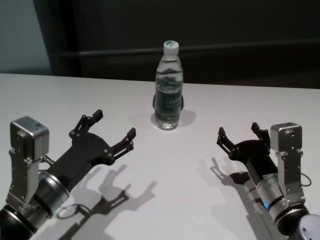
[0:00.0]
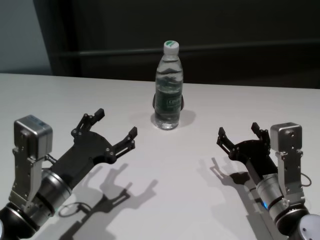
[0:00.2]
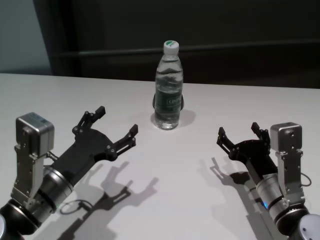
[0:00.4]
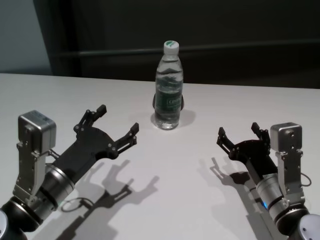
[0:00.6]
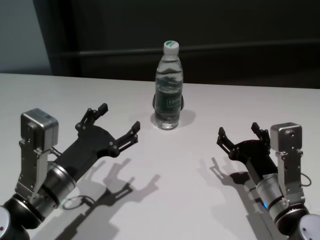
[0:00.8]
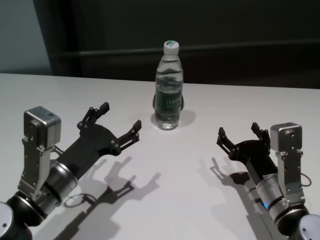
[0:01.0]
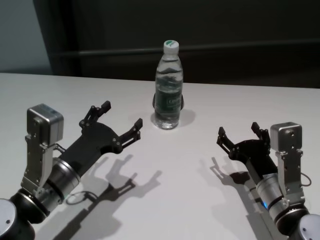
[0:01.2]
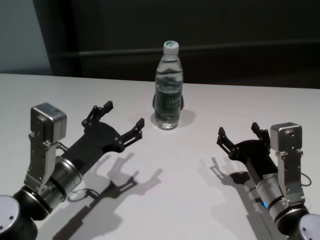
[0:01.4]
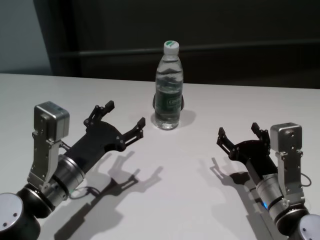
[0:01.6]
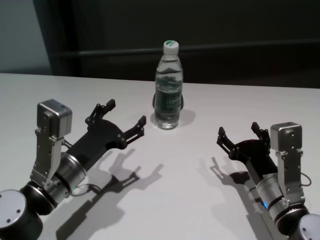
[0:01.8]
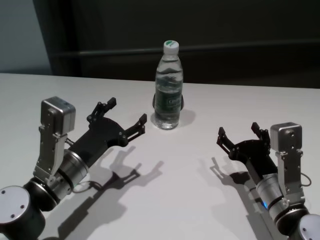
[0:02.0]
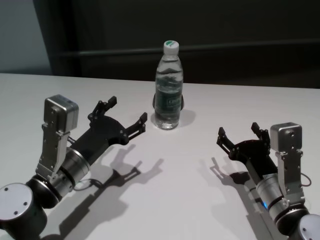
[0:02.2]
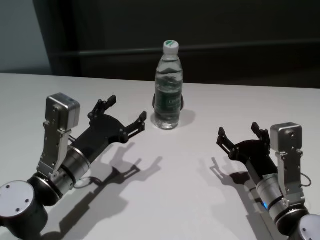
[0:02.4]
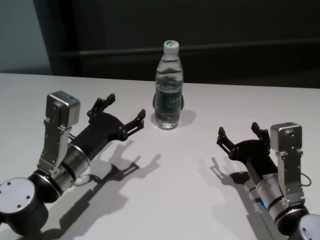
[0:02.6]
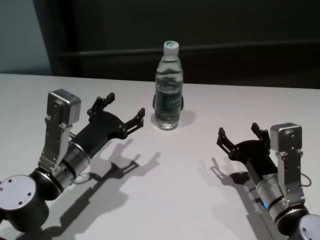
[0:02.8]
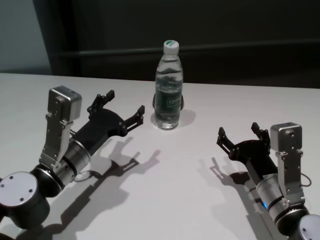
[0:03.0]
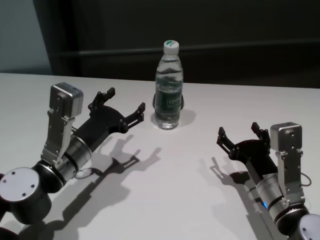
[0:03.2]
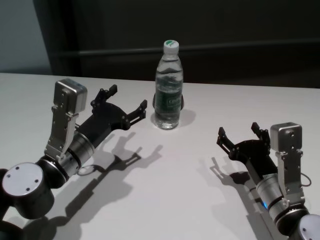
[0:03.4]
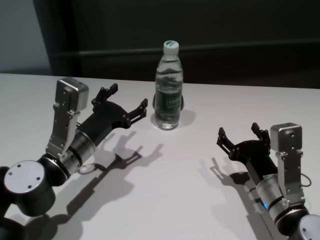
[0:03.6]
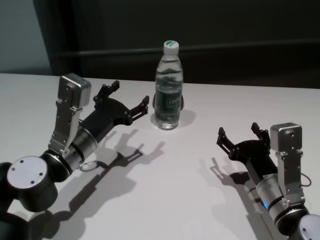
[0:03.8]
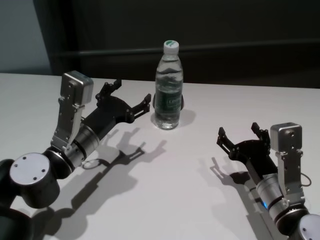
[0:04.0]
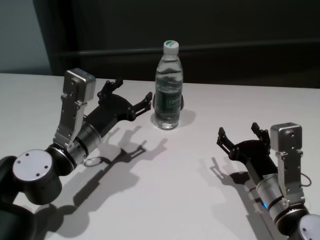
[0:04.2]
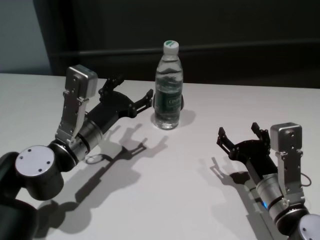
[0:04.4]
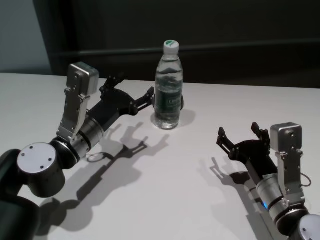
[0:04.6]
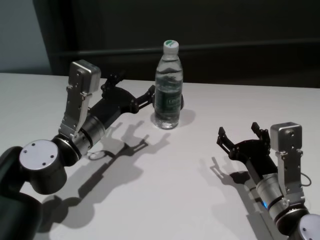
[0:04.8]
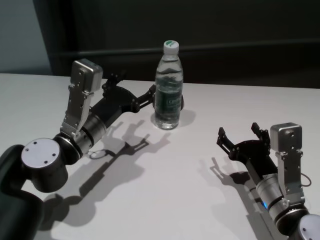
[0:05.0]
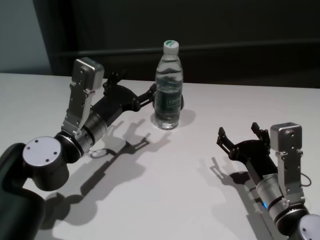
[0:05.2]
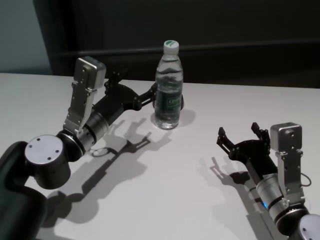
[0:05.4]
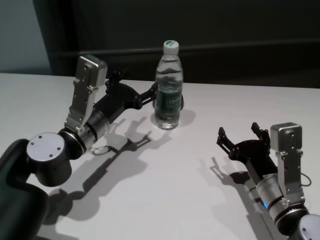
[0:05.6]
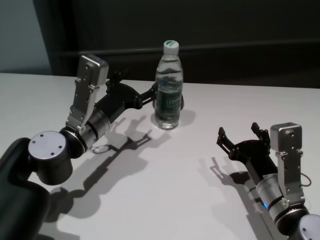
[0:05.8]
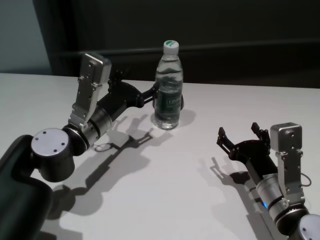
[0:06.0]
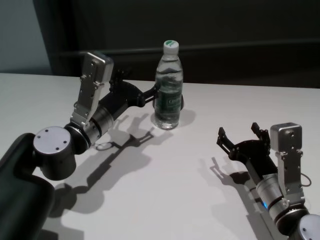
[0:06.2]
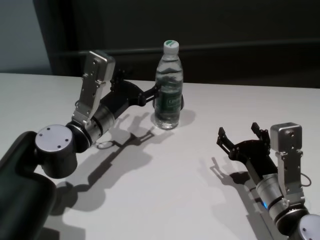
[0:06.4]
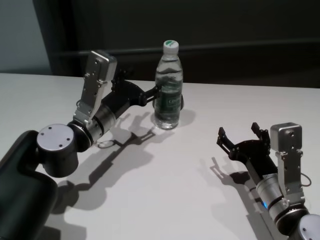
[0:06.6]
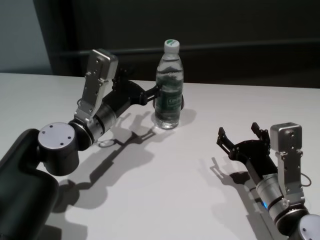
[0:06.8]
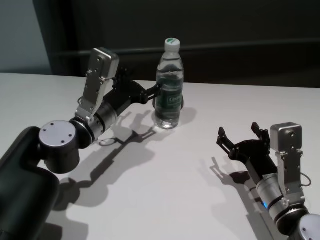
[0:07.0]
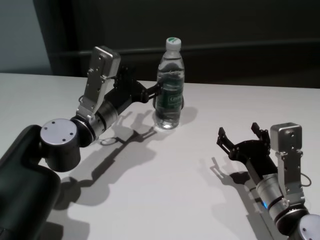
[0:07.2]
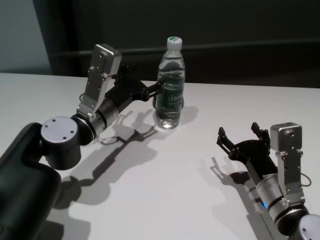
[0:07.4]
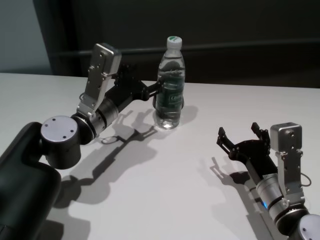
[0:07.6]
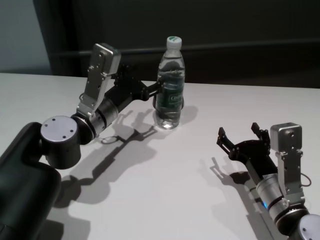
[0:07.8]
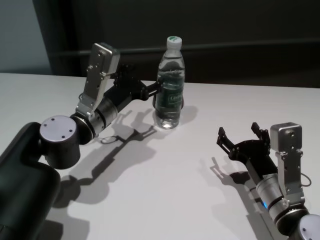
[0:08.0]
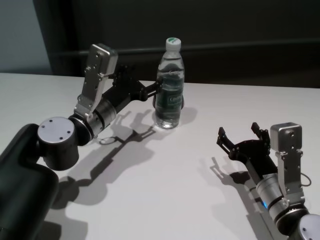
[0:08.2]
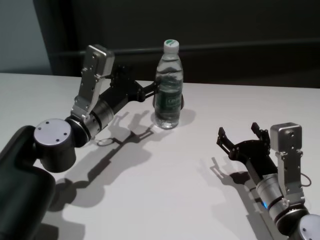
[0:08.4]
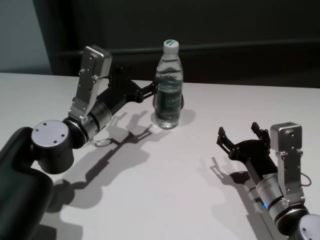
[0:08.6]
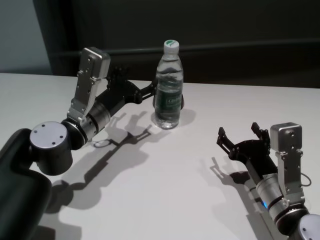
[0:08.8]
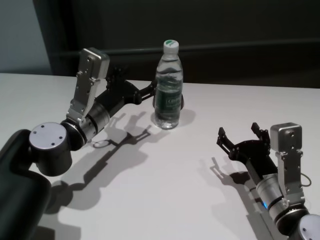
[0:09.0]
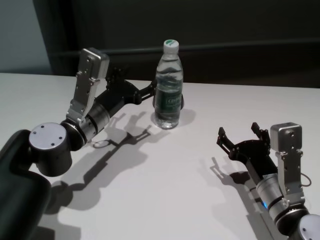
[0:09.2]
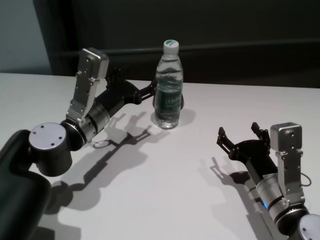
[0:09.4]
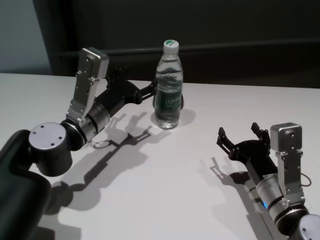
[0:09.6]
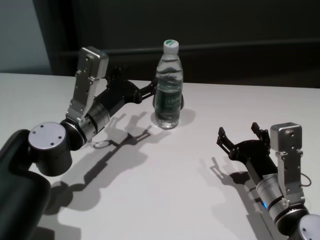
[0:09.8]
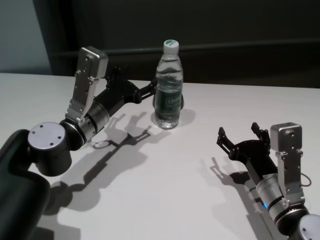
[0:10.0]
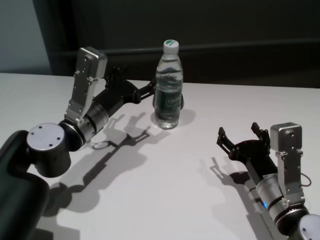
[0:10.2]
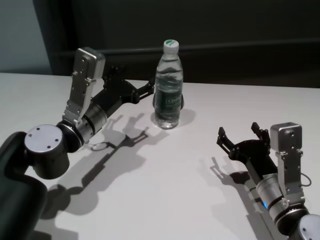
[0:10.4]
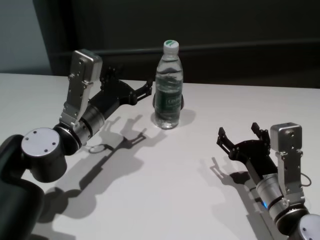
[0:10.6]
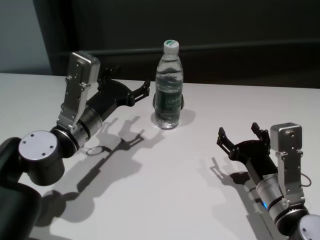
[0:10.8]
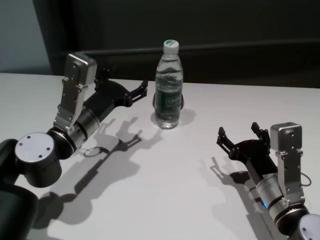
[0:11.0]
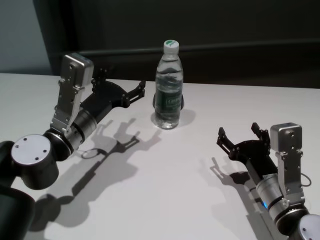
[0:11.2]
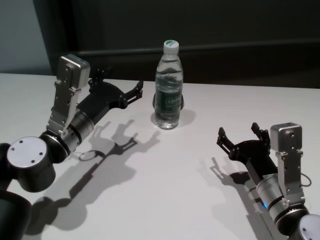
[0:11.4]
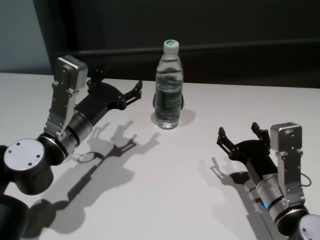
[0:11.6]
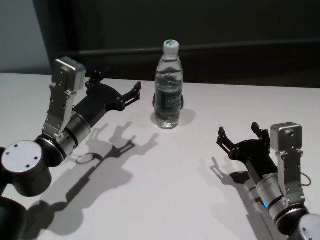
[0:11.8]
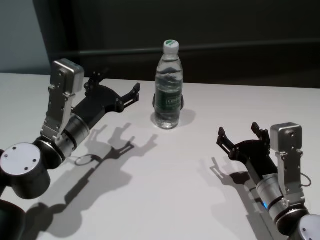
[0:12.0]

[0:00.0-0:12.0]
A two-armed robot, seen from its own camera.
Task of the whole recording: return to a safe position after touching an obstacle with your arm on the white table.
Step, 0:00.0 to 0:11.2: Touch the bottle with left gripper.

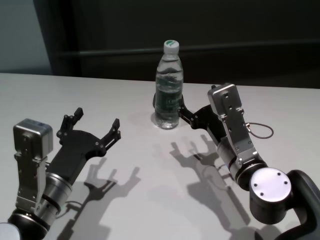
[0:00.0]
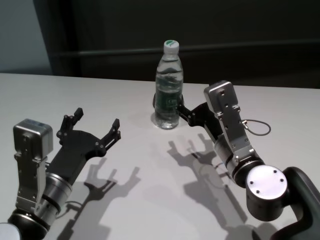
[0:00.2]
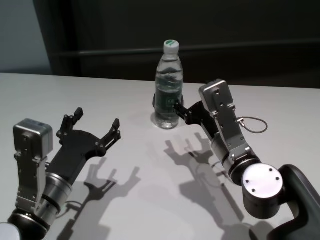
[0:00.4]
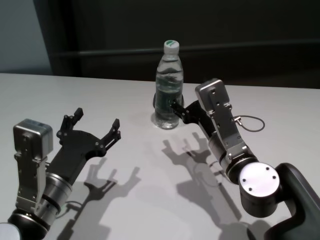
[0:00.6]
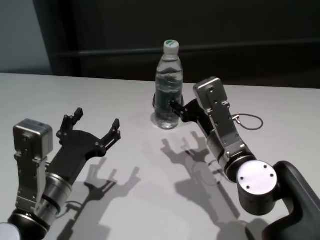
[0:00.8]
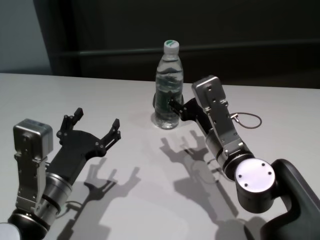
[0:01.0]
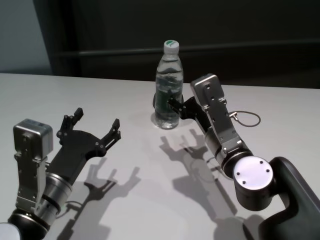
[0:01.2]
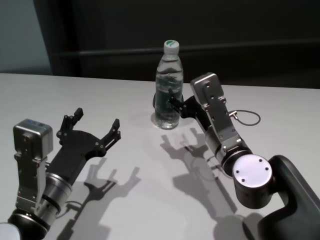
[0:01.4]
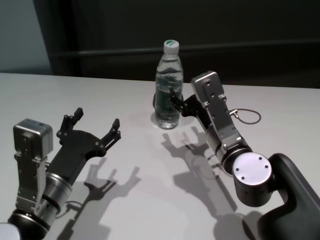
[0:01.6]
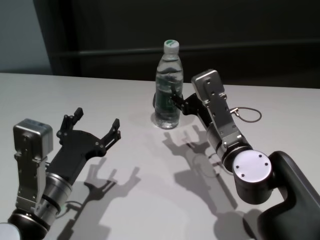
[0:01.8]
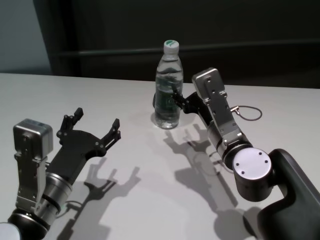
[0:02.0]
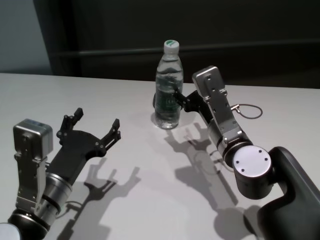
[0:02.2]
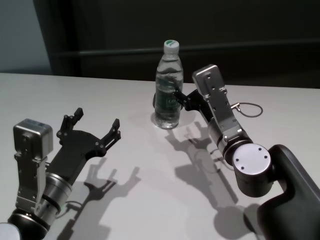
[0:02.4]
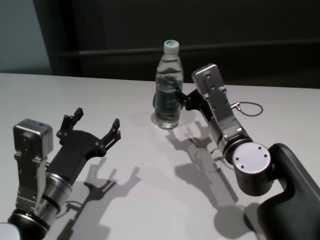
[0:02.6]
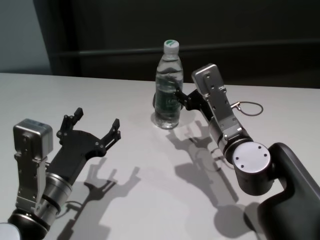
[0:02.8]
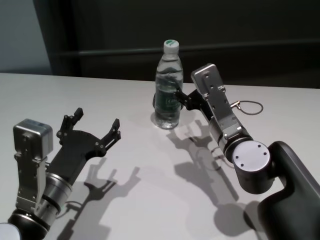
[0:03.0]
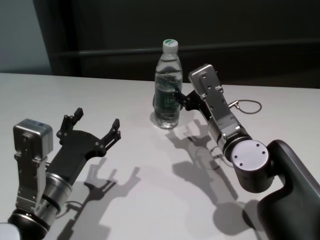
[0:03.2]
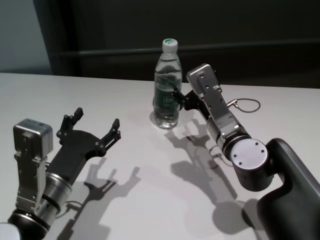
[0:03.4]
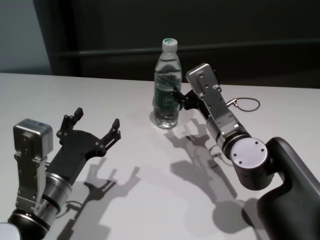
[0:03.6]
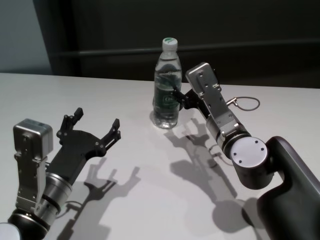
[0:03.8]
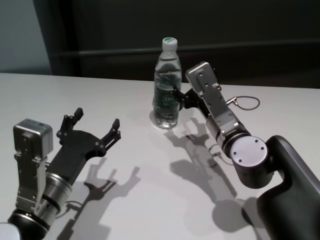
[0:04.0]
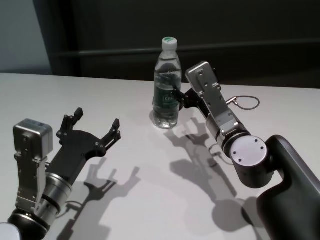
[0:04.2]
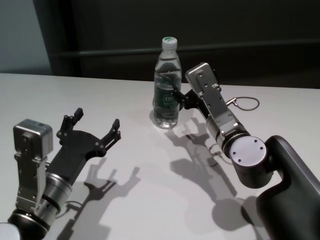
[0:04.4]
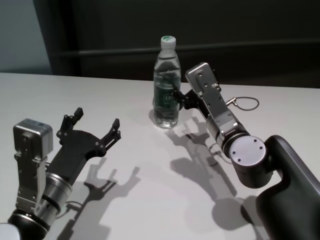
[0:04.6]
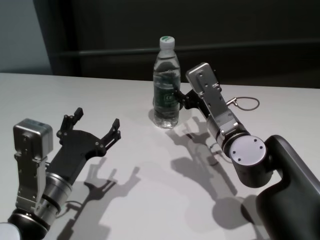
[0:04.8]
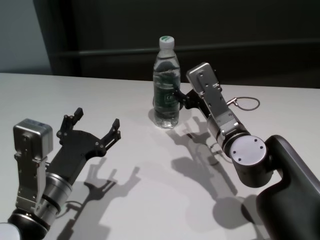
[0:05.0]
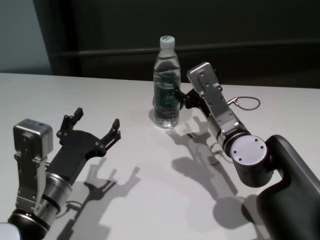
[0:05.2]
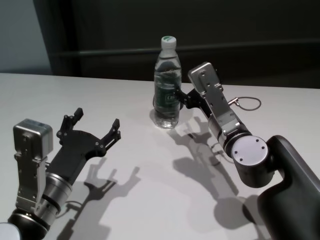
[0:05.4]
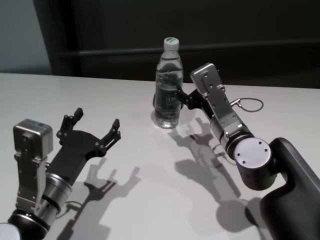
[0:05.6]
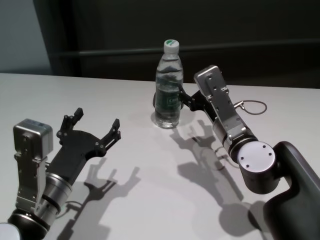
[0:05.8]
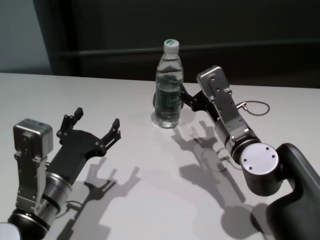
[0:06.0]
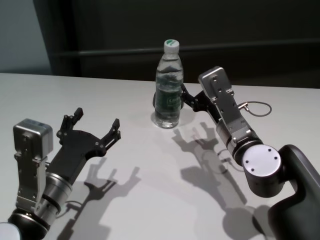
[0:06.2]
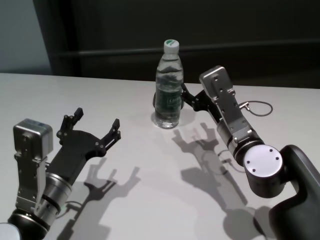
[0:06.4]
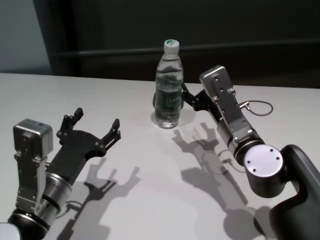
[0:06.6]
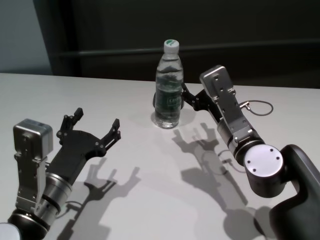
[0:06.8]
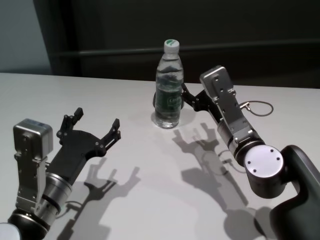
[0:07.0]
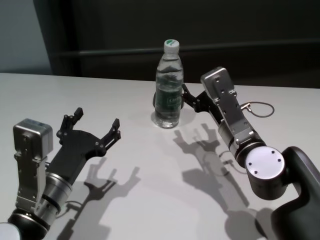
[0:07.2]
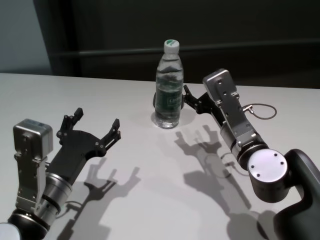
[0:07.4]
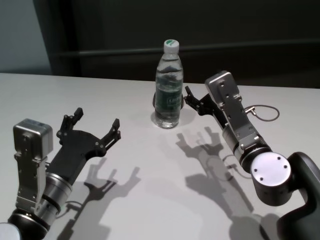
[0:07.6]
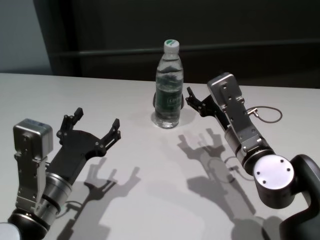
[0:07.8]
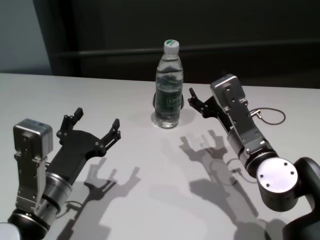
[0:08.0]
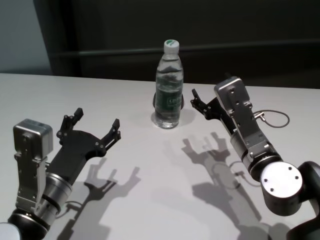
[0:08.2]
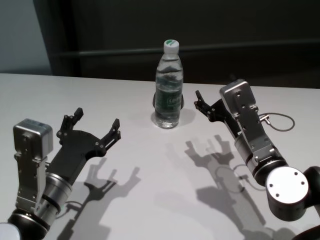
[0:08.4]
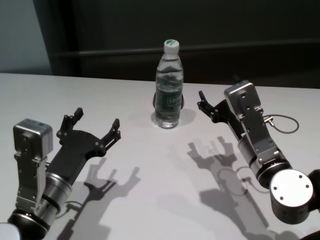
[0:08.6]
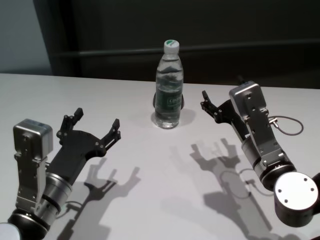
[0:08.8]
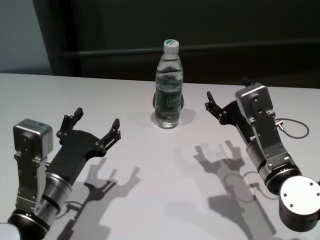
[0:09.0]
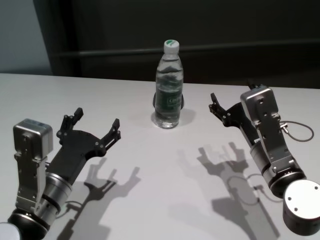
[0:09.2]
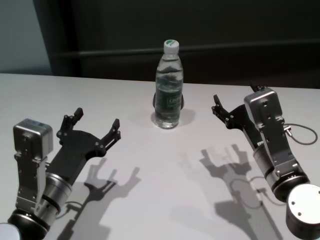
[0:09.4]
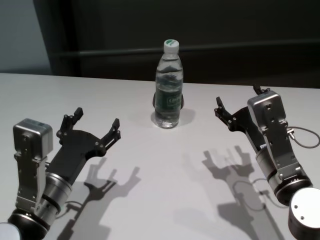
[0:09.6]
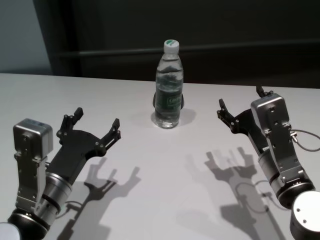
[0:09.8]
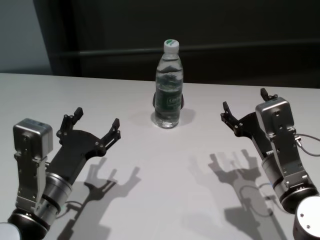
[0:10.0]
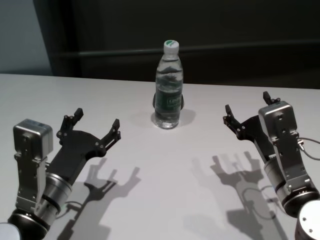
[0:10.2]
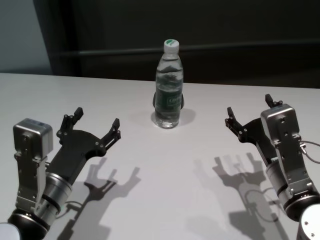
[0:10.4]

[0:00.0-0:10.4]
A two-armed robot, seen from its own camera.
Task of the whole recording: return to a safe position after touching an obstacle with your arm on the white table.
Step, 0:00.0 to 0:07.8: Touch the bottle with right gripper.
